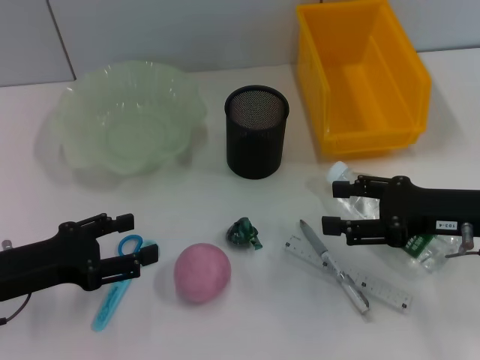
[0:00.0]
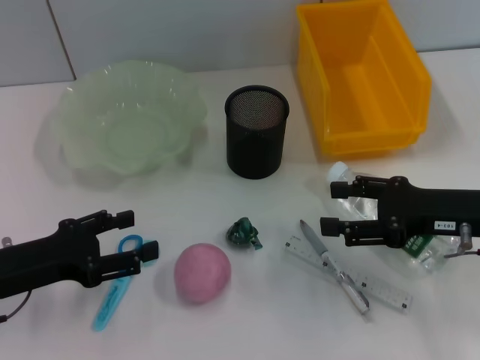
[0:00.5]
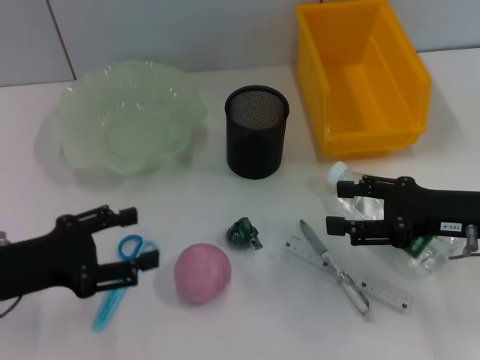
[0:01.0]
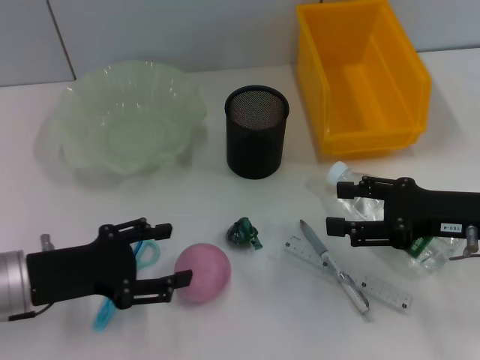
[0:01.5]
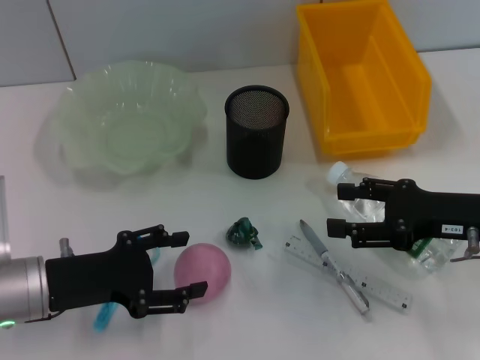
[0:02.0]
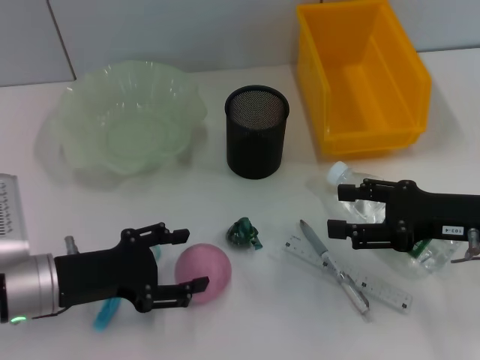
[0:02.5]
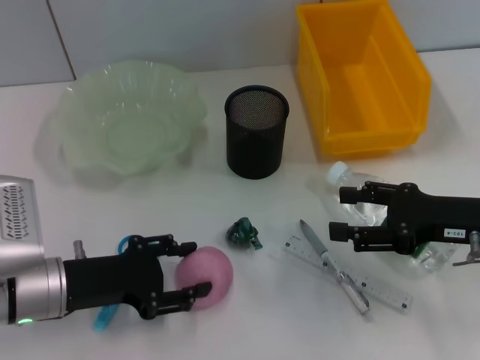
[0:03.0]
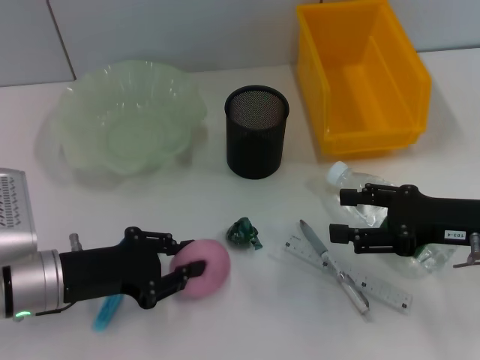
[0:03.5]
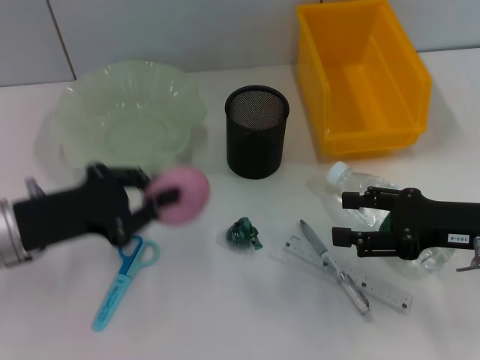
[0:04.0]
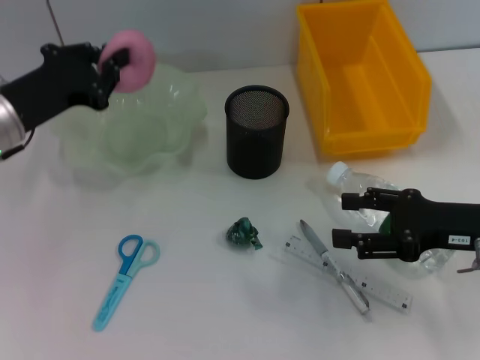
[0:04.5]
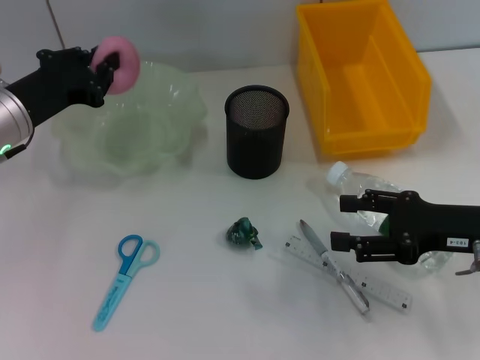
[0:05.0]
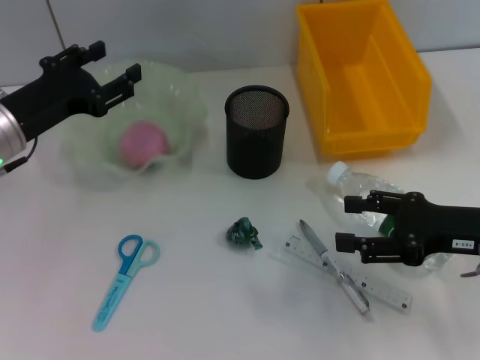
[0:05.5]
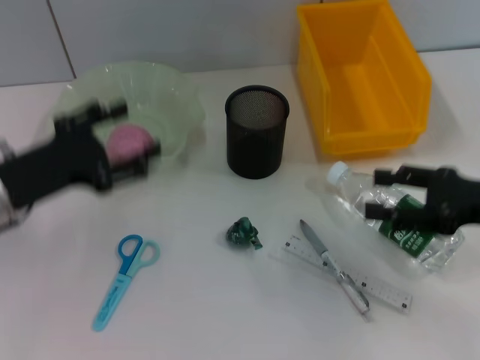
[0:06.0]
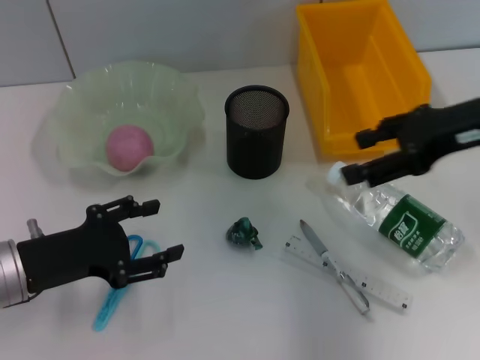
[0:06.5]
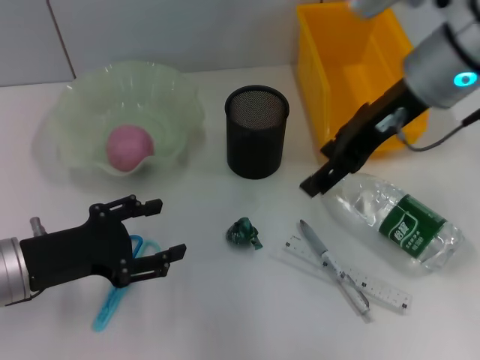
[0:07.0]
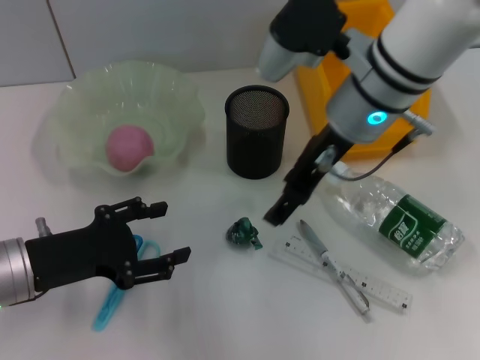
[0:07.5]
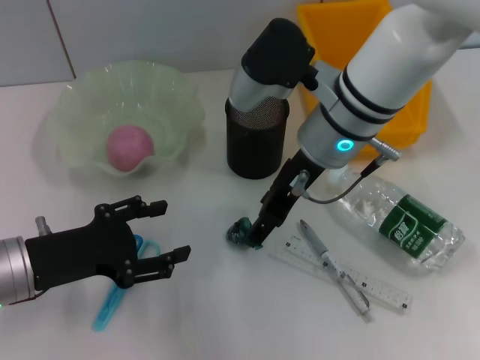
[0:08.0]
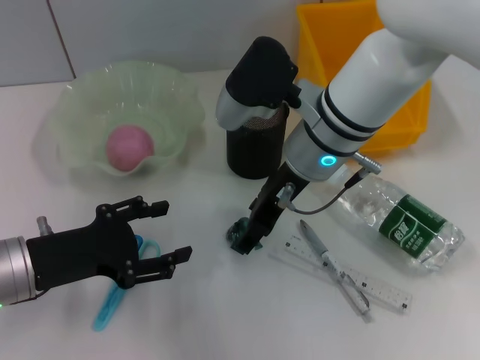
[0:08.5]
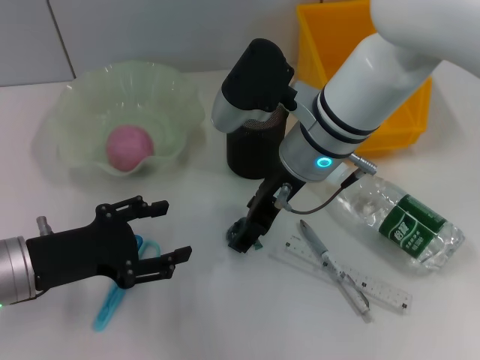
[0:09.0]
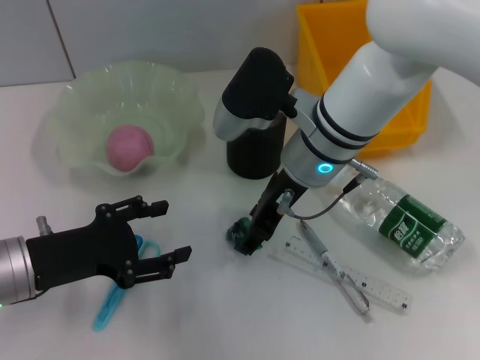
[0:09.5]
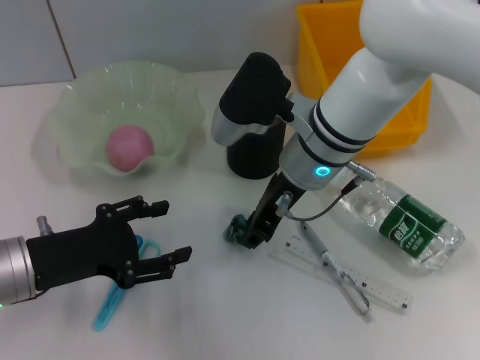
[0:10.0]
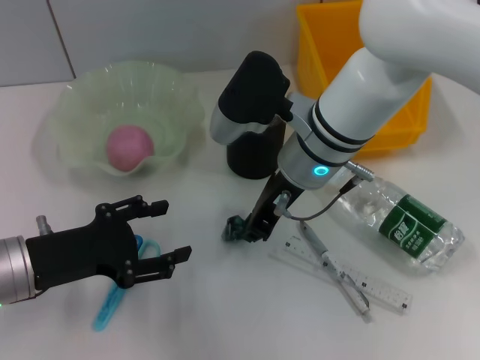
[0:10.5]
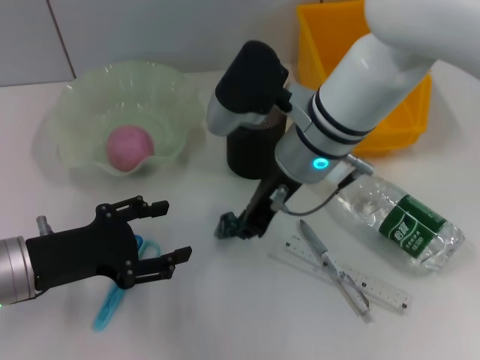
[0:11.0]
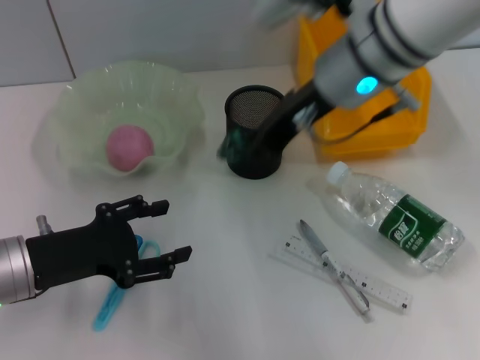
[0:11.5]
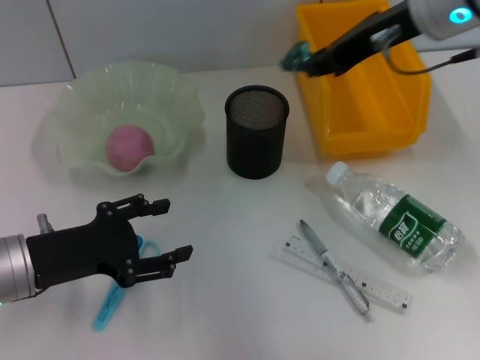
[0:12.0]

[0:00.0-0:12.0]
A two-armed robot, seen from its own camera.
Step, 0.0 to 3.0 s: Grab the peach with the left hand.
Step, 3.5 to 5.5 s: Place the peach into the fruit bowl with the left hand.
Step, 6.0 to 10.5 s: Grab the plastic with the right hand.
2.0 to 4.0 s: The left gripper closes up.
4.0 to 6.0 s: The left gripper travels forward and back again, approximately 10 cm each way, and opens up.
6.0 to 8.0 s: The right gripper is displaced to the left and forward by approximately 25 cm. The left gripper ends up roughly 5 cm from where it was.
8.0 to 10.0 s: The right gripper closes its fingers.
10.0 to 12.0 s: The right gripper heads upward and to the right, covering about 15 cm.

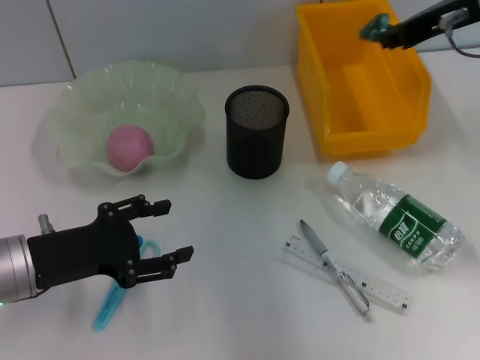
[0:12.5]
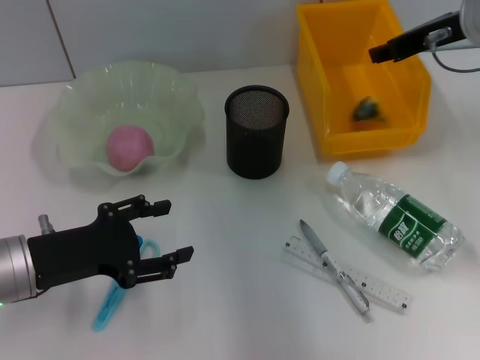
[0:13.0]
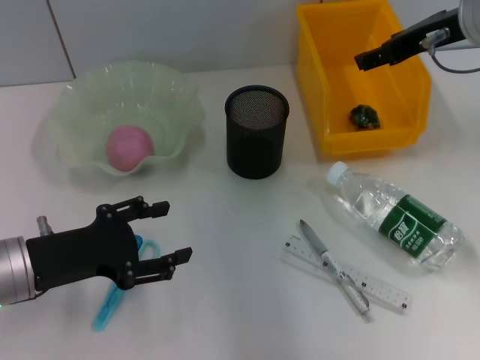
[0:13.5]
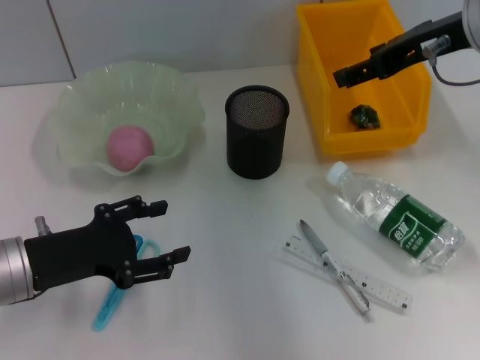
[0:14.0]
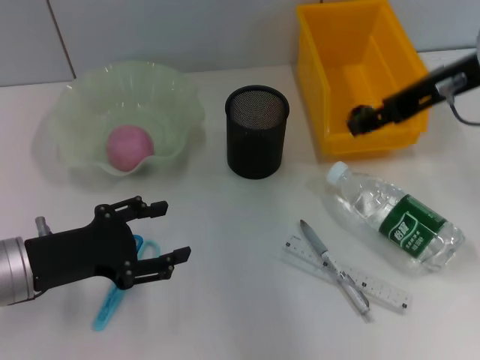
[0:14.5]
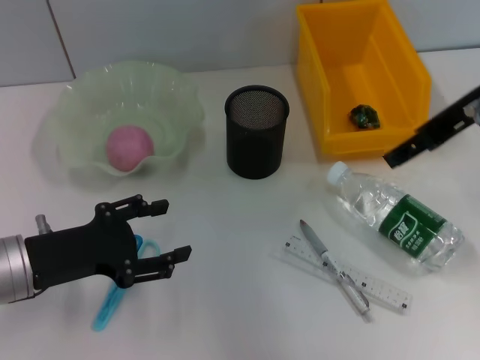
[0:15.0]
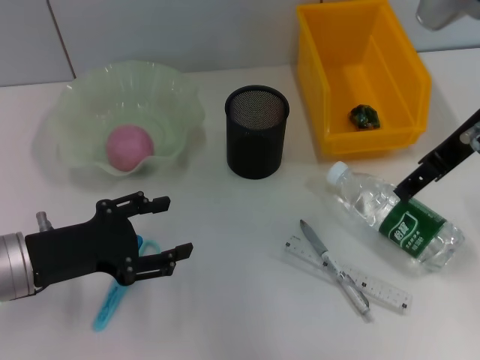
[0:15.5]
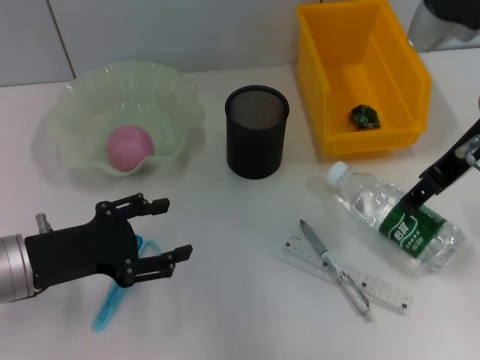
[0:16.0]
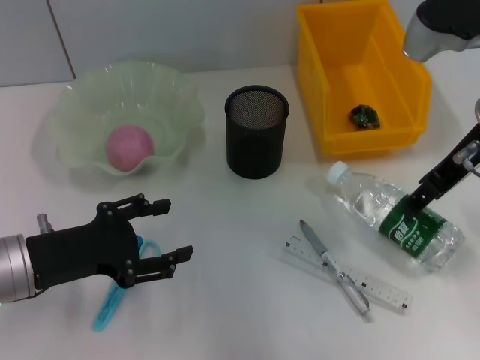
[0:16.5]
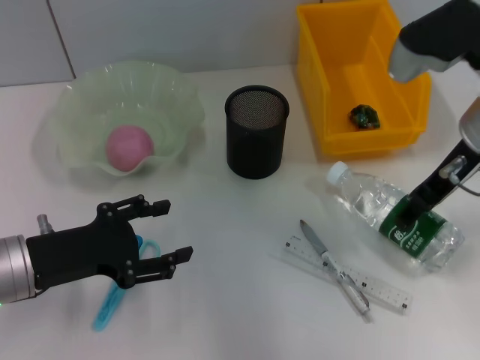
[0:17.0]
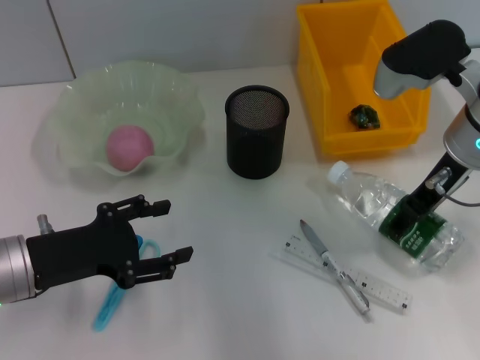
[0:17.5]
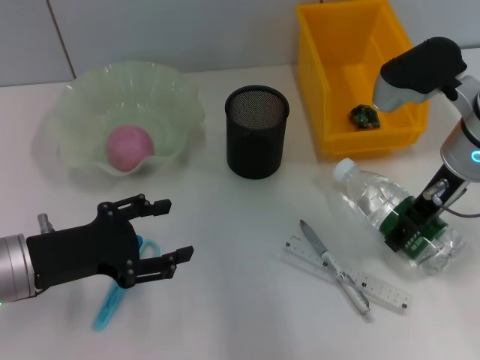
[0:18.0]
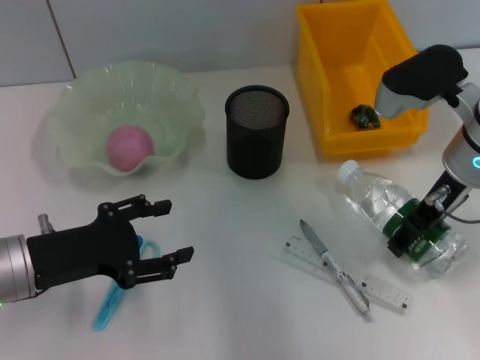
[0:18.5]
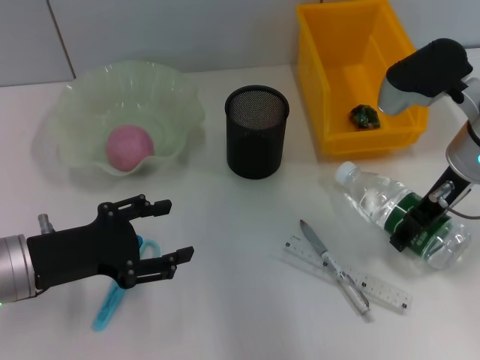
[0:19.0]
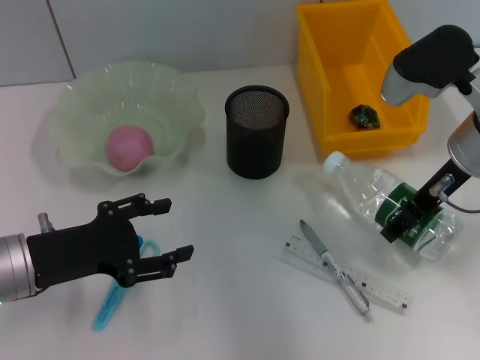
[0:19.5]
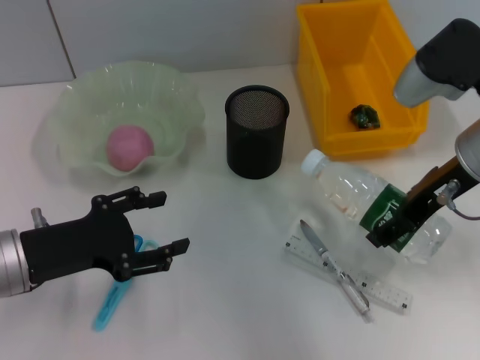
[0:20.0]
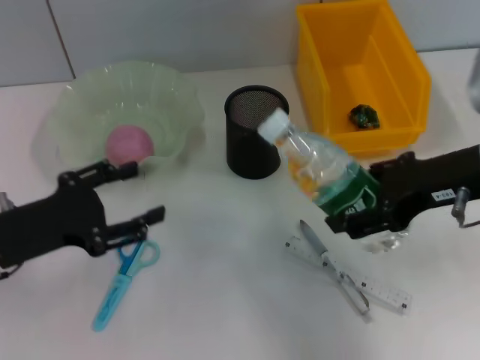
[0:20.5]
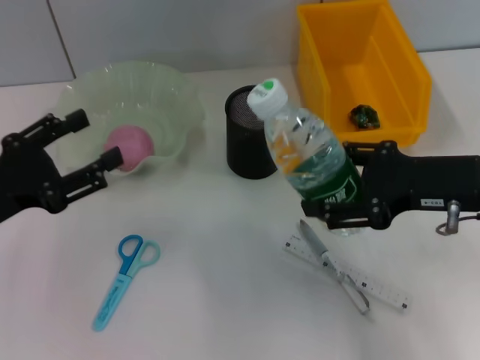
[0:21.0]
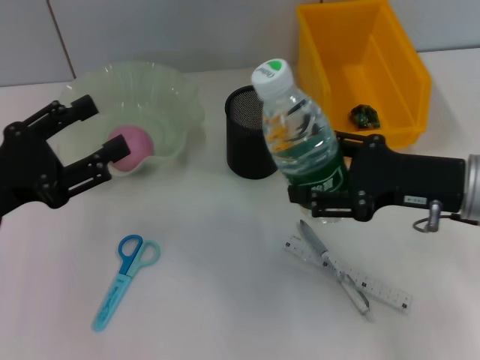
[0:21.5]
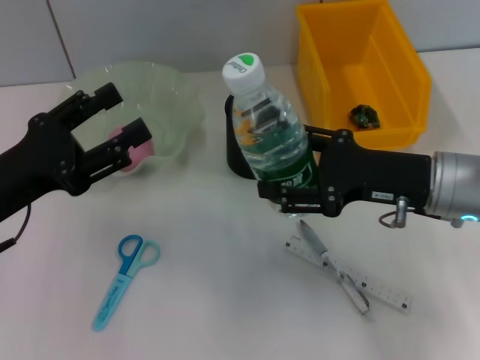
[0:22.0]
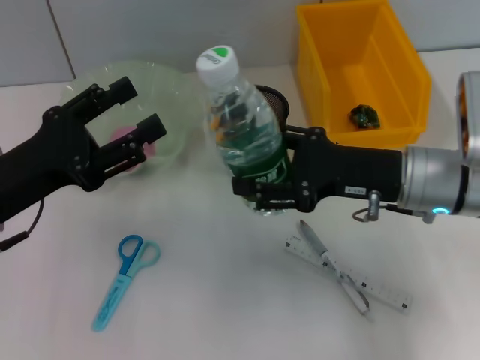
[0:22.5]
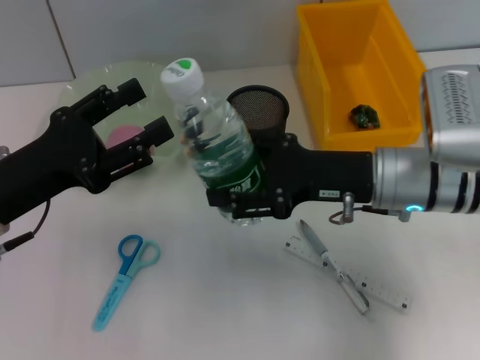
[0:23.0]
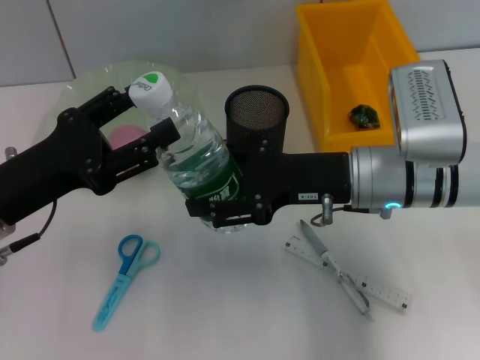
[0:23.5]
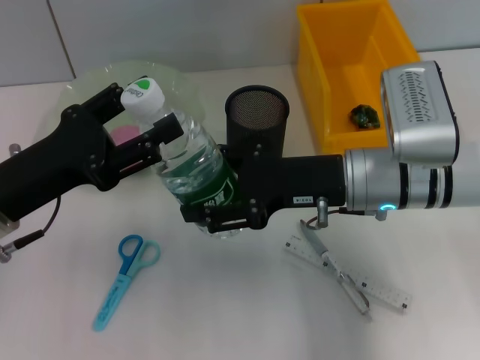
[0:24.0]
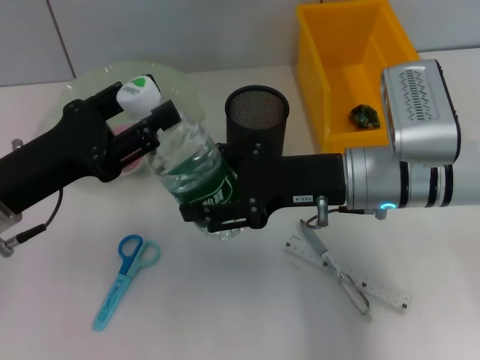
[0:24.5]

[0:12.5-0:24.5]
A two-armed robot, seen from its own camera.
Step, 13.5 to 18.5 s: Grab the water bottle with the right hand.
12.5 to 14.5 s: The right gripper opens.
16.5 to 18.5 s: The right gripper goes about 5 cm downward.
18.5 to 20.5 s: The right gripper is displaced backward by approximately 5 cm.
20.5 to 22.5 s: The right gripper shifts roughly 10 cm downward.
22.5 to 24.5 s: The right gripper moves about 5 cm.

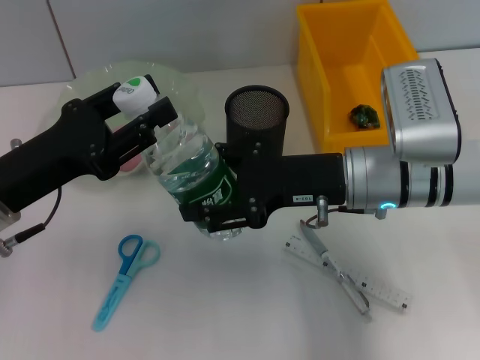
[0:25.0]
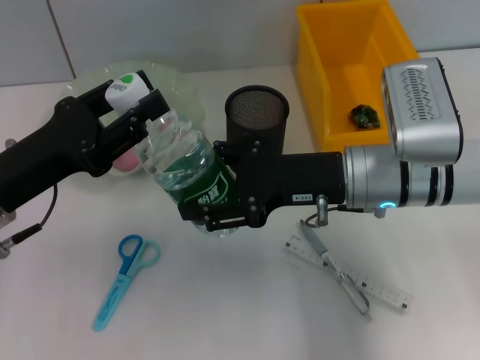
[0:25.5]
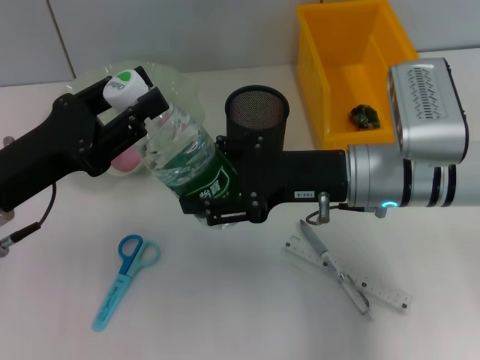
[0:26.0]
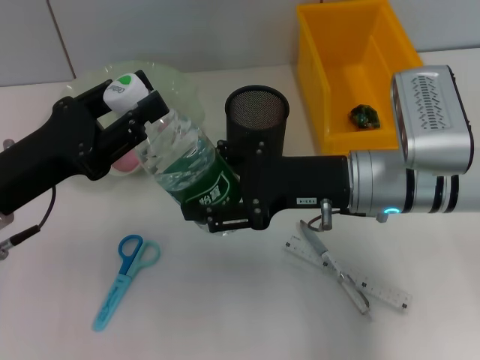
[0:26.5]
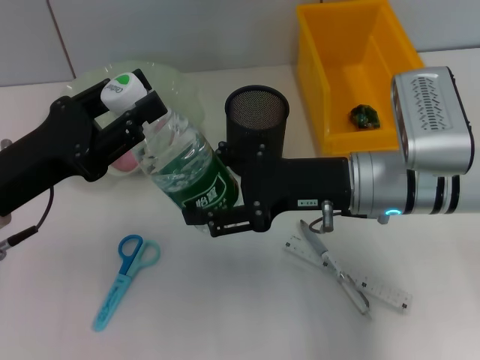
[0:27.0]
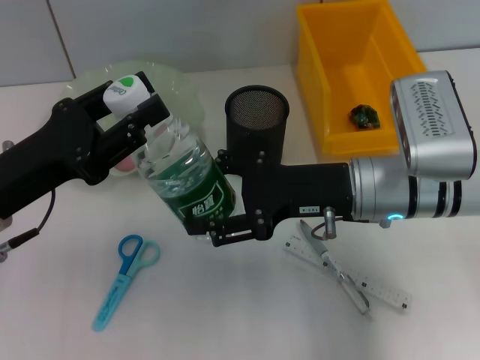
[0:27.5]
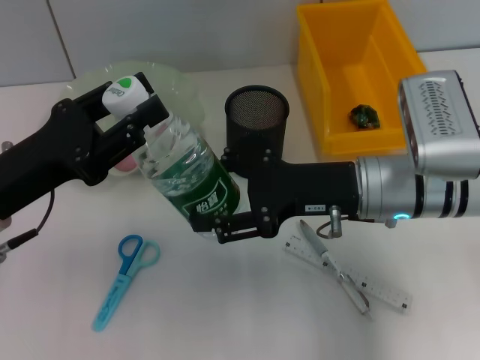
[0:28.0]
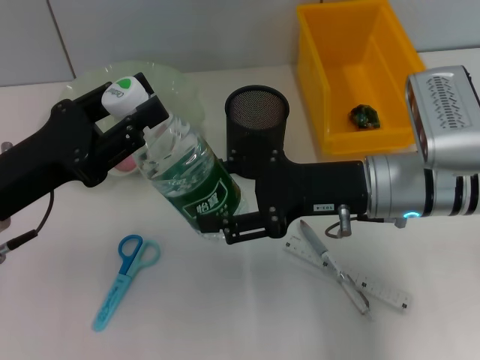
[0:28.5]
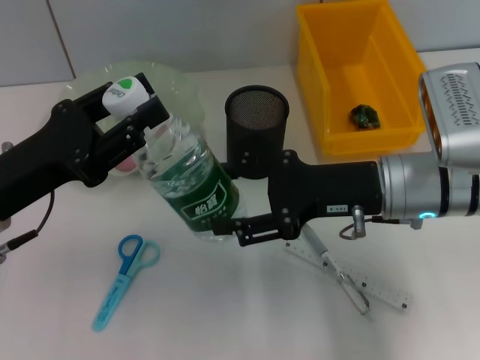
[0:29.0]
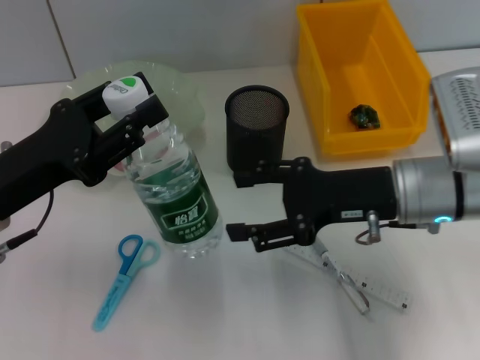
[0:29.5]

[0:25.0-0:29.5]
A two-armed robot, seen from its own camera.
Step, 25.0 to 29.0 s: Pass the water bottle from the right hand to the left hand.
25.0 to 27.0 s: Both grippers stay put.
27.0 to 29.5 s: There are only small adjustments of the grippers.
